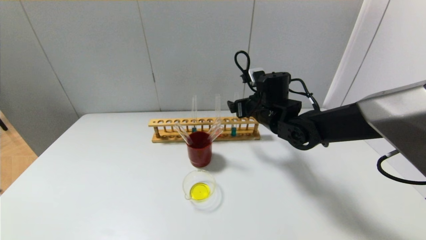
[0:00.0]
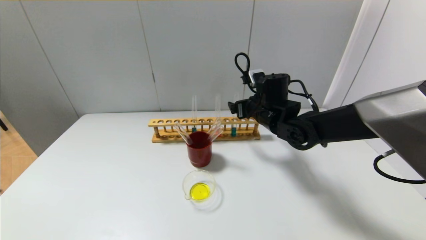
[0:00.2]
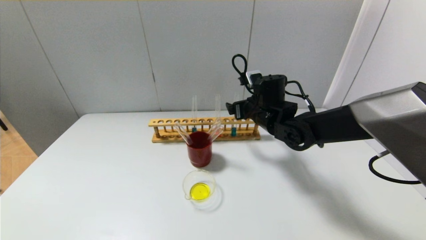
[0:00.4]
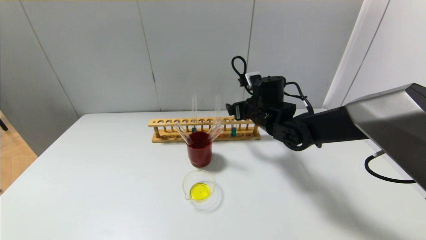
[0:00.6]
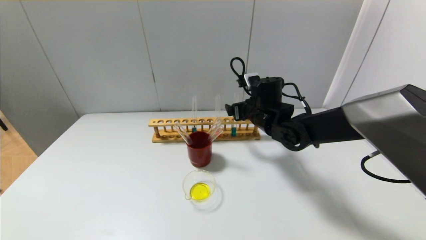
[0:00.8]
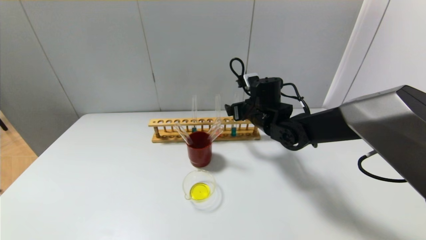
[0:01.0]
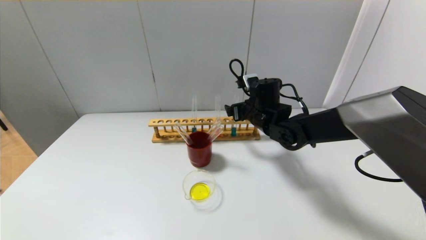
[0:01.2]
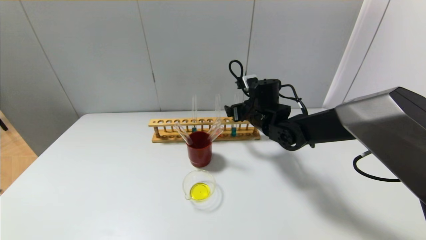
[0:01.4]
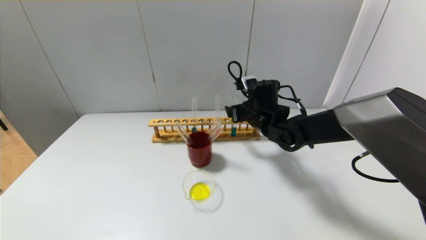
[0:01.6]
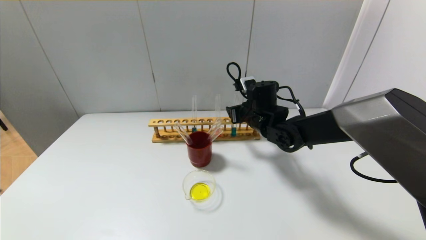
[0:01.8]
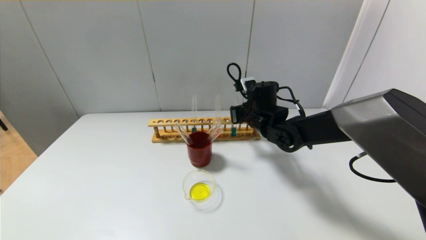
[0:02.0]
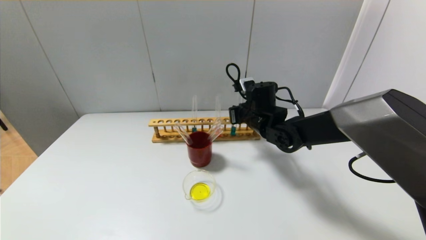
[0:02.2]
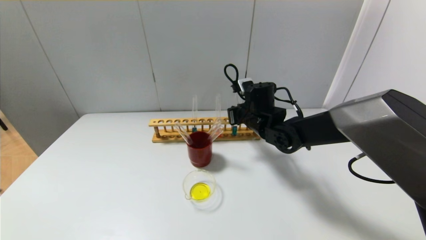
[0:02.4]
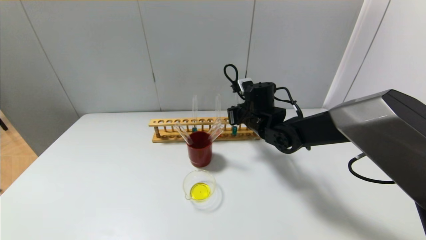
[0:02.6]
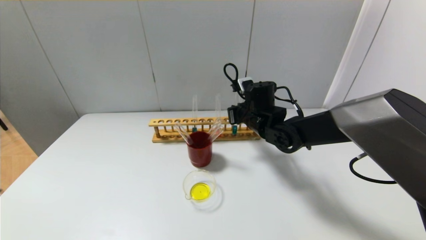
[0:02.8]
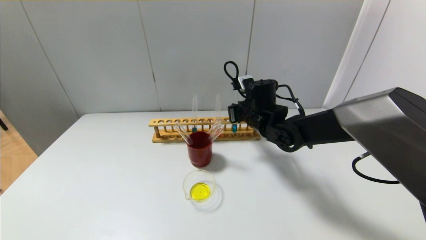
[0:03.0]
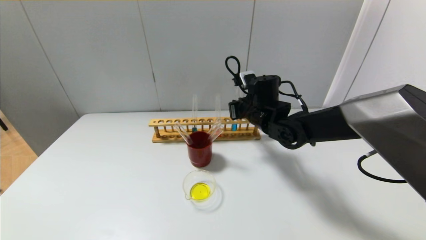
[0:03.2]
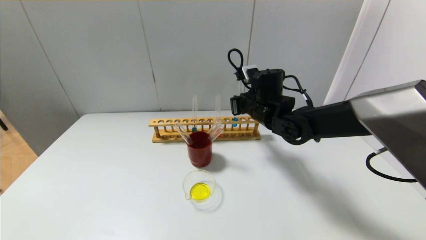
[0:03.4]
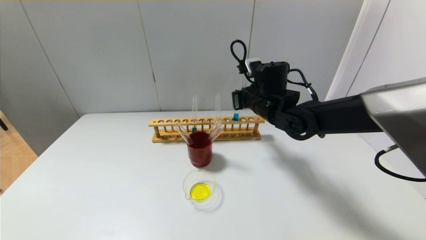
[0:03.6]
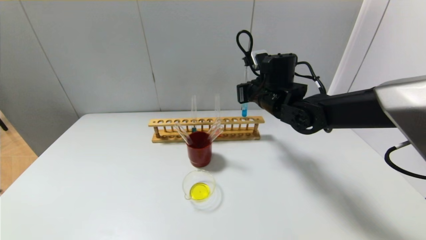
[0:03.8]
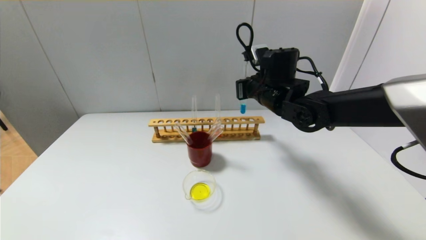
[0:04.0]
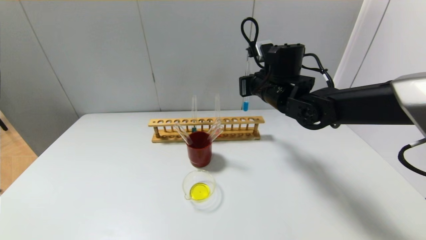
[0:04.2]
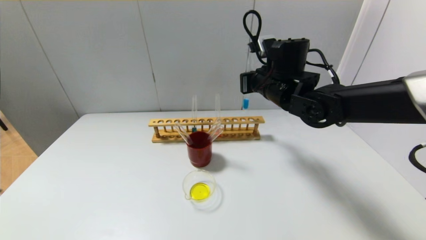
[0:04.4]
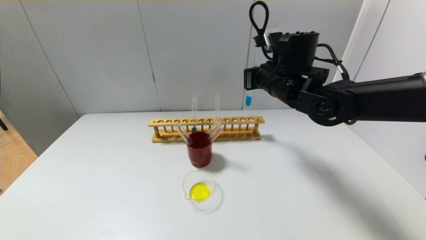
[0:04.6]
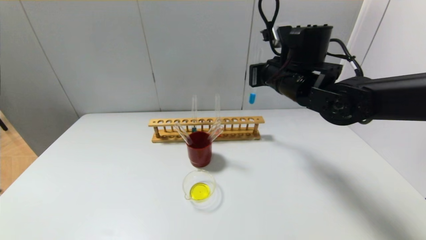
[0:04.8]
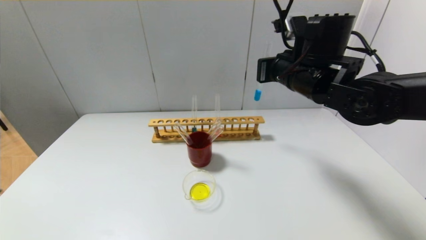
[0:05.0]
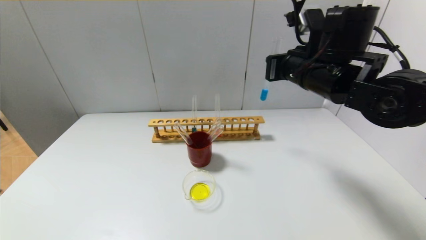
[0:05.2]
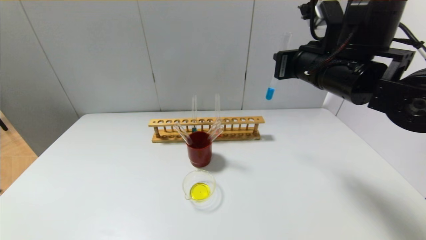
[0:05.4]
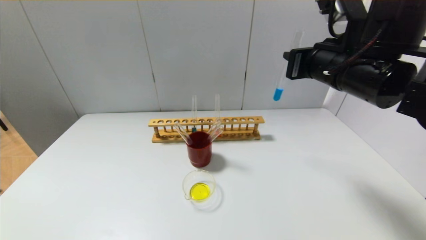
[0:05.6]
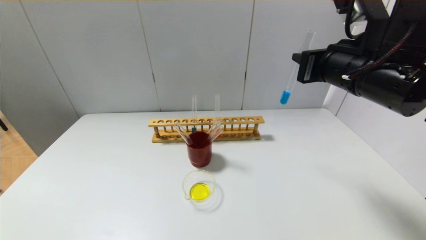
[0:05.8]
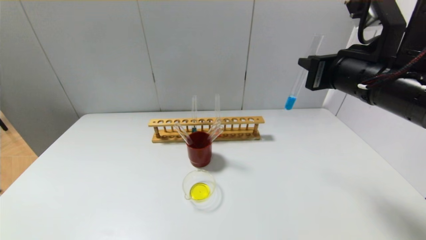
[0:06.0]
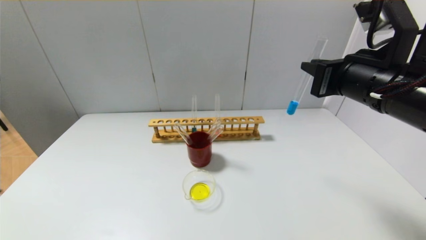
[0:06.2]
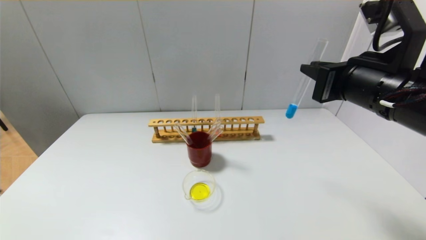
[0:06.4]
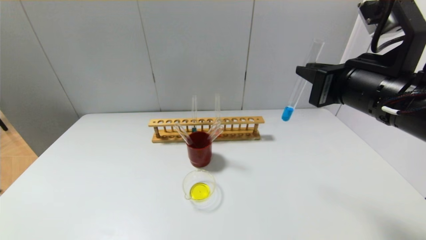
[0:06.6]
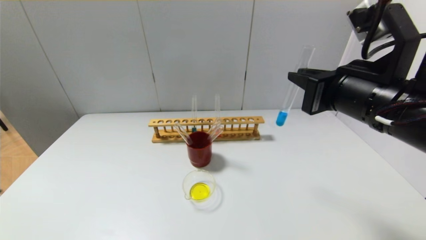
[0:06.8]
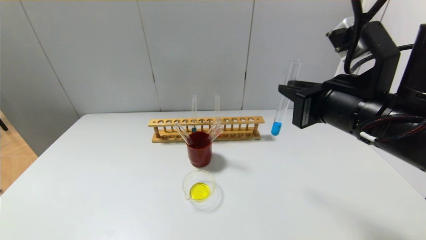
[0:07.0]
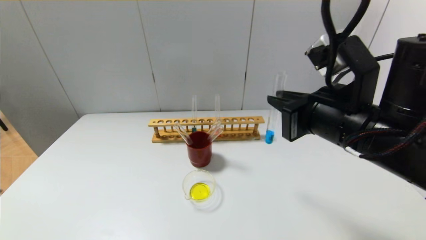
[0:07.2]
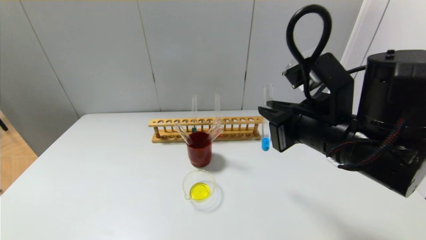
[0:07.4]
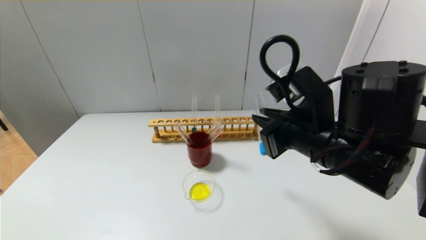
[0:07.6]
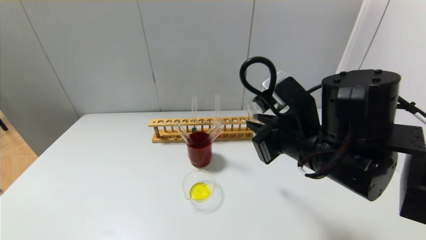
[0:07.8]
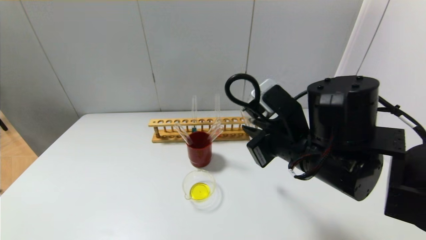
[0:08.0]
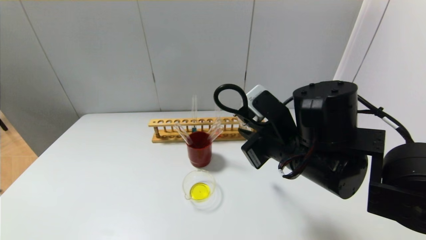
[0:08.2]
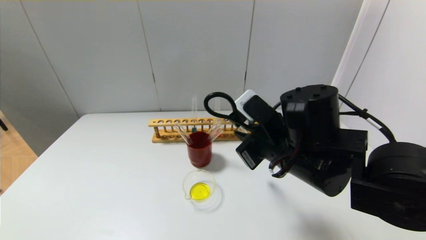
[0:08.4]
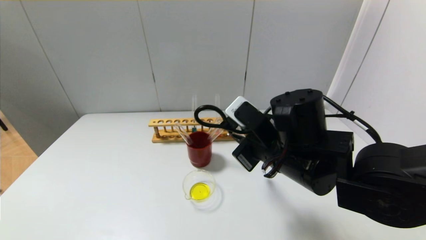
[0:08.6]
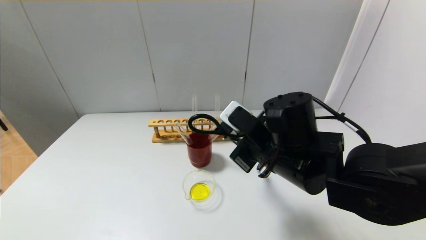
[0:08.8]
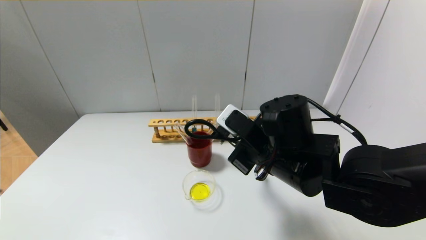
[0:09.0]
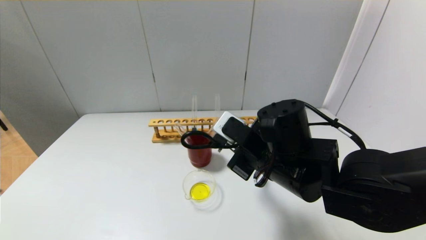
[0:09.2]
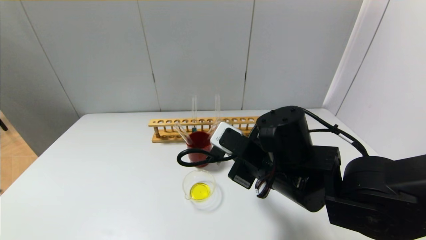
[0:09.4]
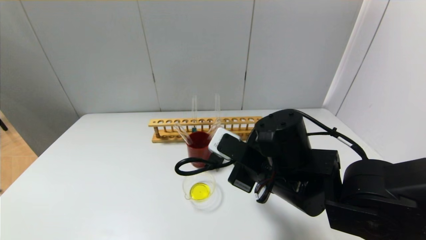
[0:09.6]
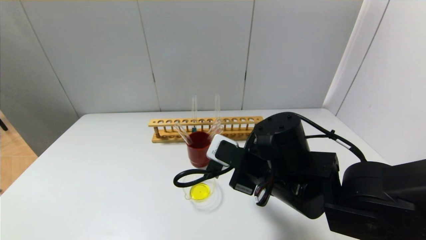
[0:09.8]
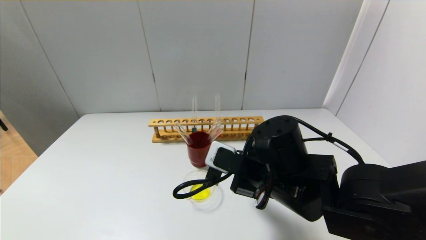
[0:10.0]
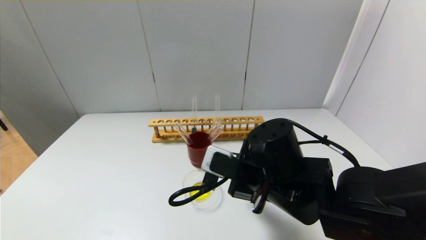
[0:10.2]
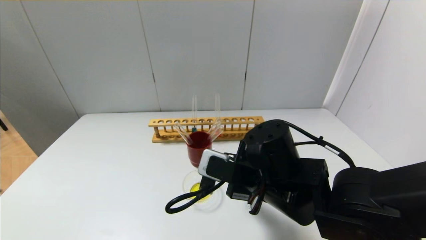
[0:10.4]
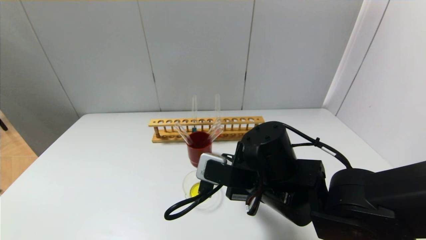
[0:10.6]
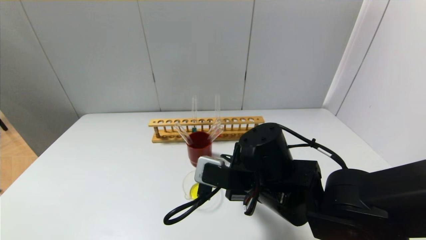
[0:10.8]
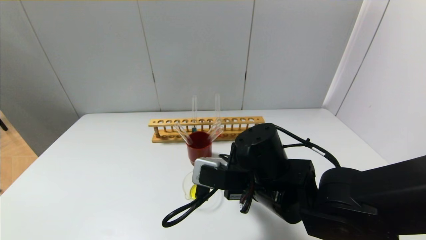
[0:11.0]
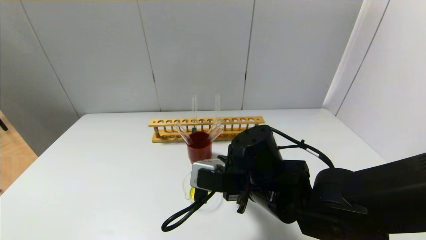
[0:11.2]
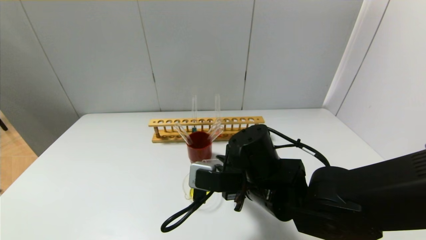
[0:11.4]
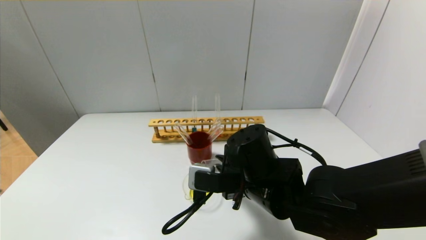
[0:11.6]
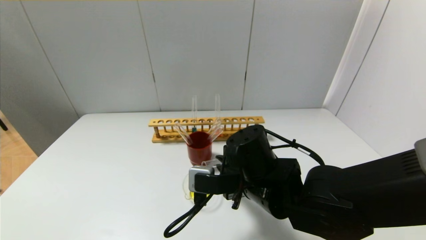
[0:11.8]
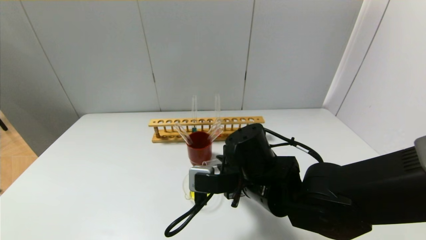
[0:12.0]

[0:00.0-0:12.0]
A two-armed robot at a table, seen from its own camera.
Step, 0:00.0 to 0:02.6: Grasp the blue reagent with the right gripper.
0:00.0 to 0:01.6: The grippers stay close to where they were, moving slightly.
0:01.6 to 0:03.0: The right gripper closes its fingers.
0:03.0 to 0:04.4: The right gripper travels upward by approximately 10 cm.
0:04.4 to 0:06.0: The right gripper is displaced backward, to the right and upward by approximately 15 cm.
0:06.0 to 0:07.6: The right gripper travels to the left and downward by some 10 cm.
0:07.6 to 0:09.0: The right gripper goes about 5 cm downward.
0:10.4 to 0:12.0: The grippers make only small movements.

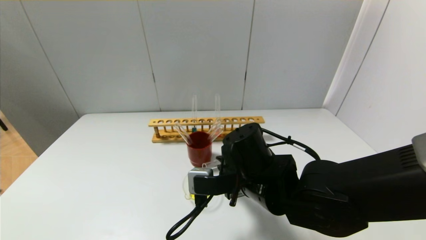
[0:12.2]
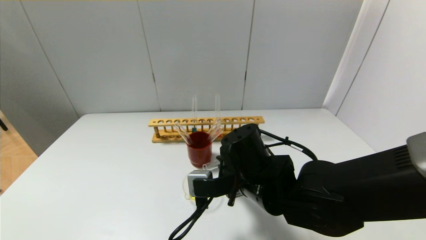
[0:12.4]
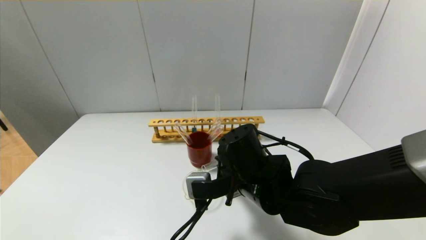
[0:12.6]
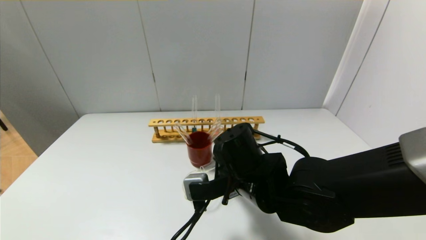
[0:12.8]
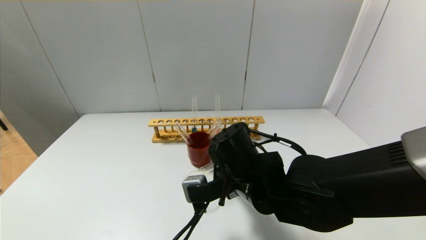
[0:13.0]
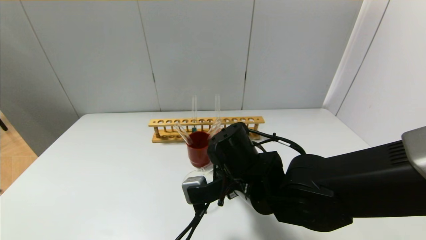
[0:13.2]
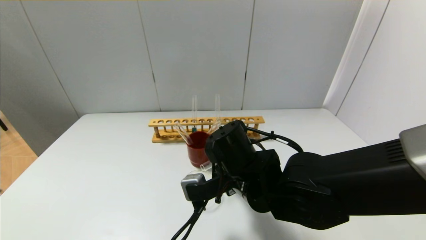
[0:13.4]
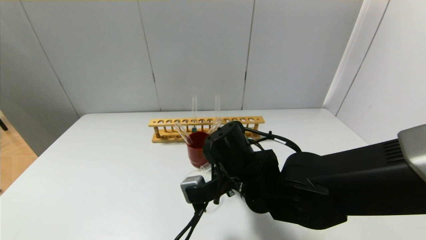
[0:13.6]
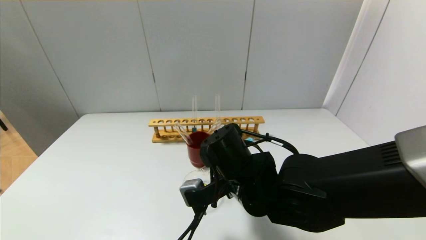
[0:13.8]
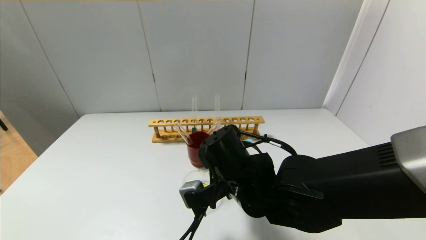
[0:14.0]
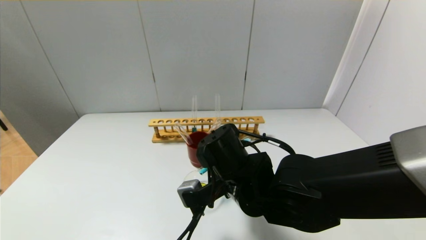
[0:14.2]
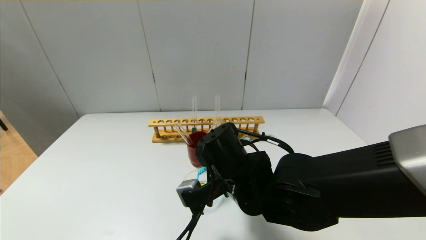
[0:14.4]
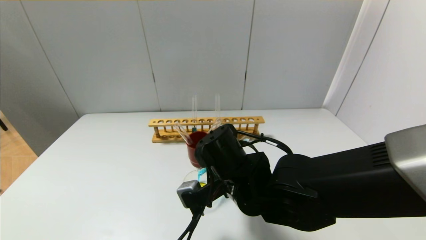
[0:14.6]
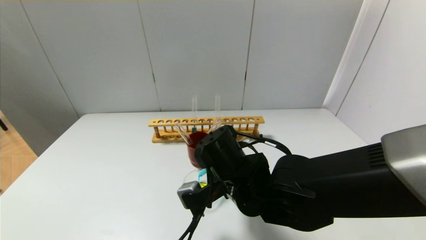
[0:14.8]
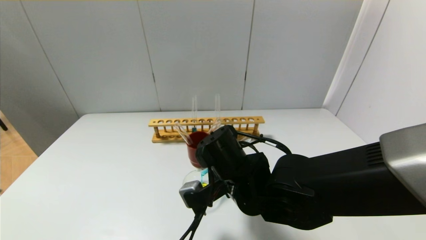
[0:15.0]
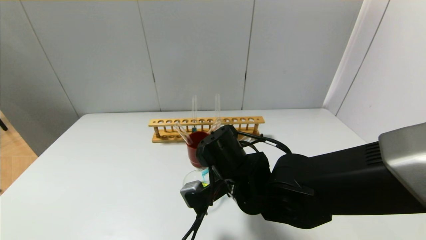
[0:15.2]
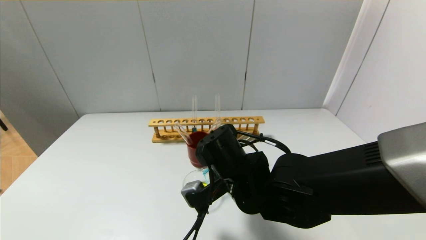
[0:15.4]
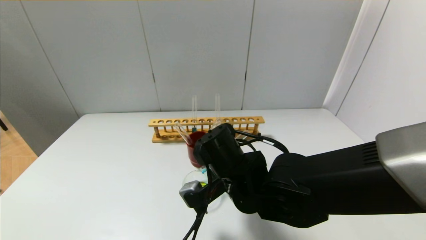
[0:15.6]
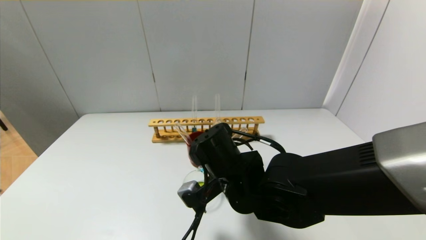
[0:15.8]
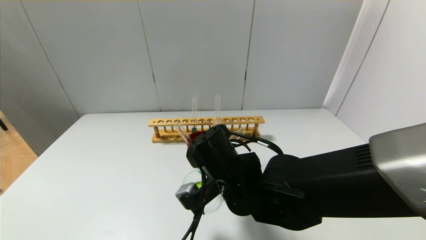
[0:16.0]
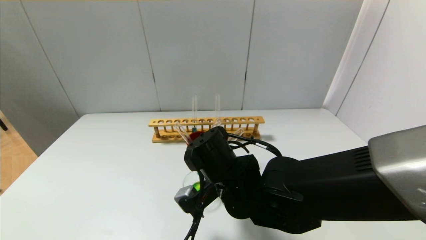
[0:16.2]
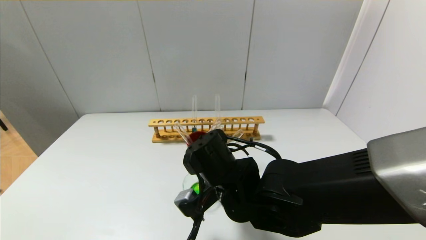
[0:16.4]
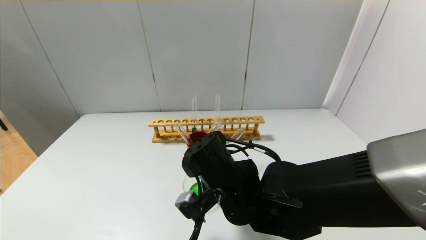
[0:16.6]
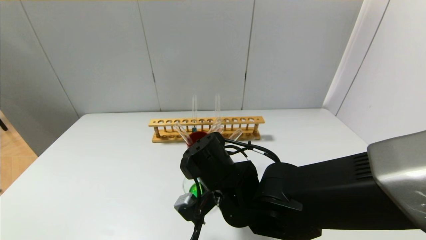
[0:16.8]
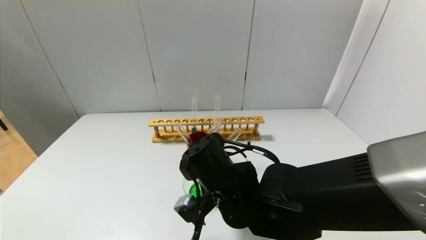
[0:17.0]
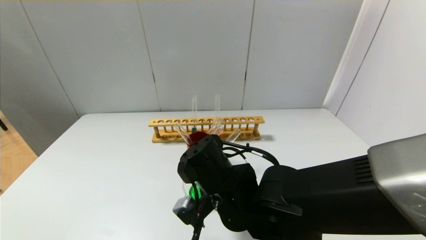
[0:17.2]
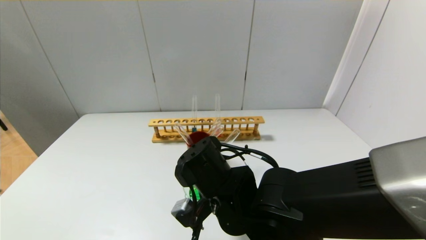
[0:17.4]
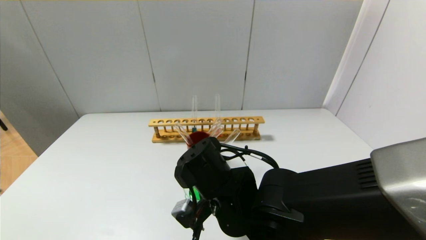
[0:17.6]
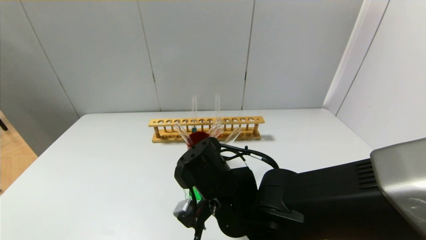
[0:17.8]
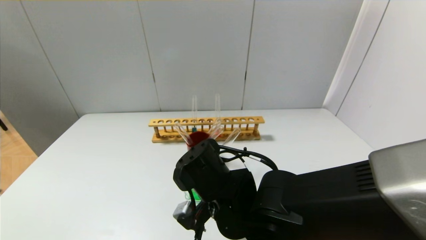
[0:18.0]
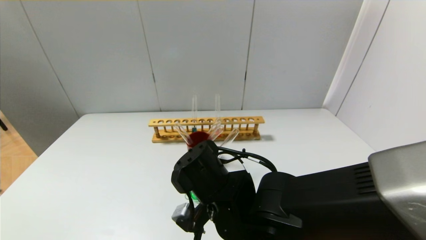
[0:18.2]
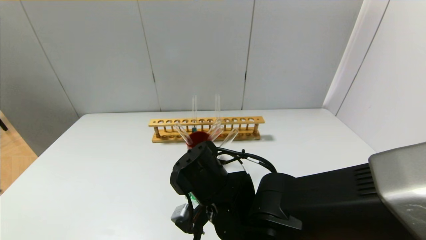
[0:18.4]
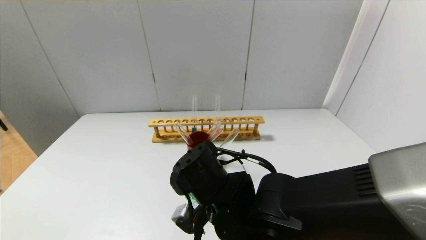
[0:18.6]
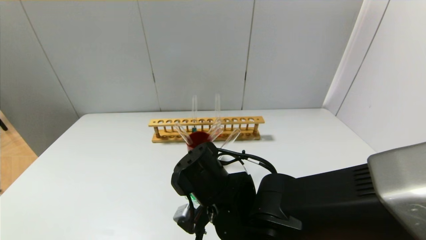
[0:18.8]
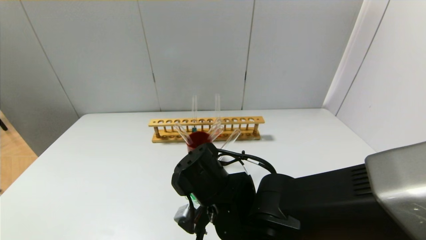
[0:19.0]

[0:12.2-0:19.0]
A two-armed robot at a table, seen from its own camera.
0:12.2 to 0:13.6: The grippers stay close to where they were, moving slightly.
0:13.6 to 0:16.2: The grippers move only a little.
0:16.2 to 0:17.6: The grippers move only a little.
0:17.6 to 0:19.0: The two grippers keep their place.
